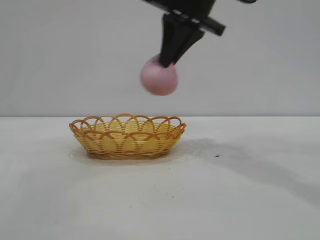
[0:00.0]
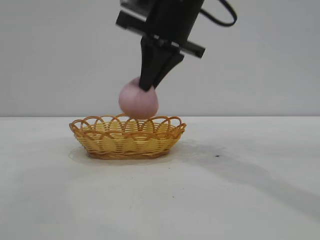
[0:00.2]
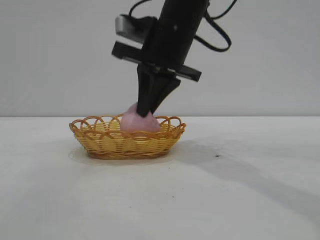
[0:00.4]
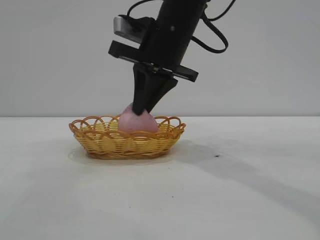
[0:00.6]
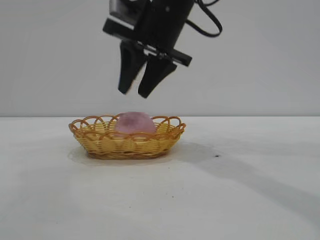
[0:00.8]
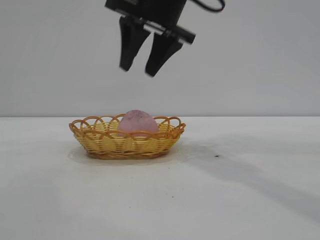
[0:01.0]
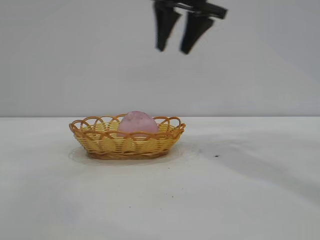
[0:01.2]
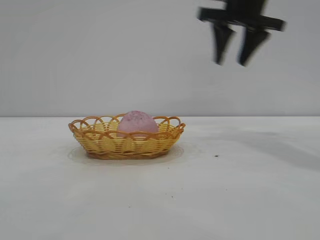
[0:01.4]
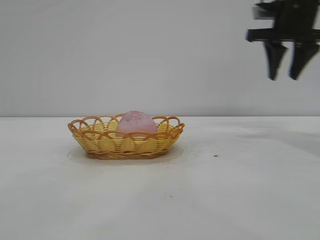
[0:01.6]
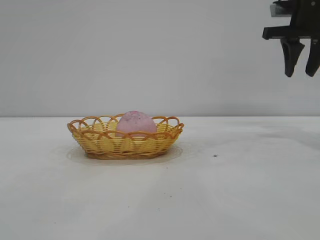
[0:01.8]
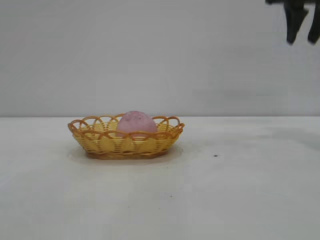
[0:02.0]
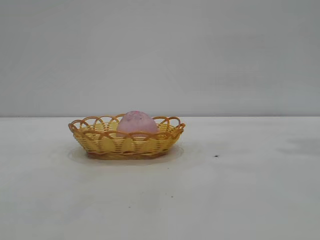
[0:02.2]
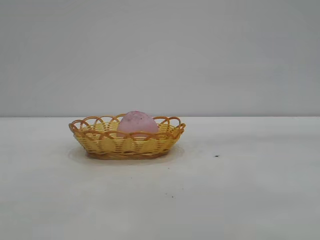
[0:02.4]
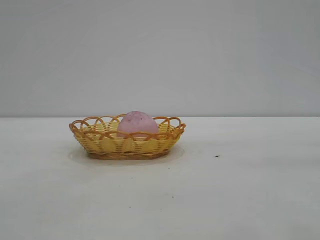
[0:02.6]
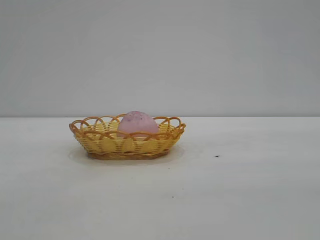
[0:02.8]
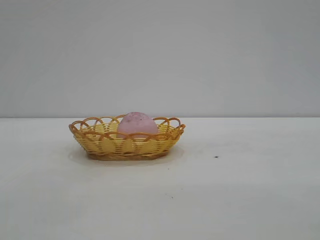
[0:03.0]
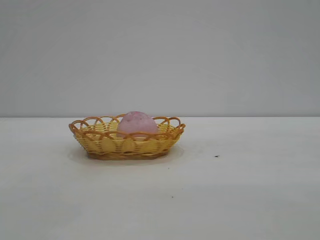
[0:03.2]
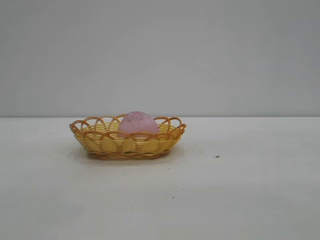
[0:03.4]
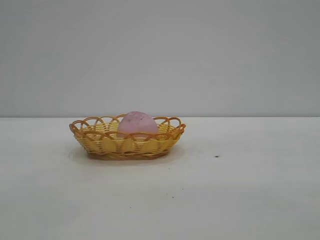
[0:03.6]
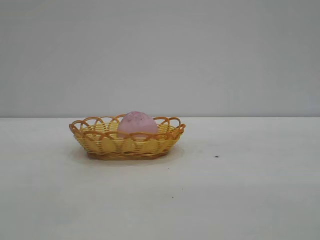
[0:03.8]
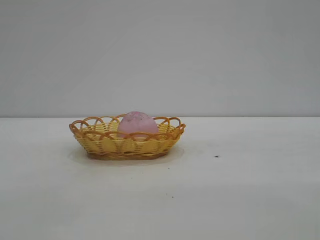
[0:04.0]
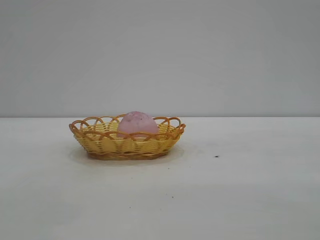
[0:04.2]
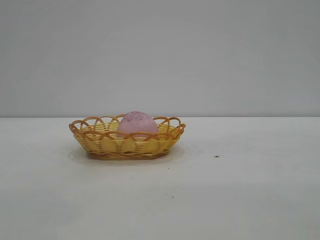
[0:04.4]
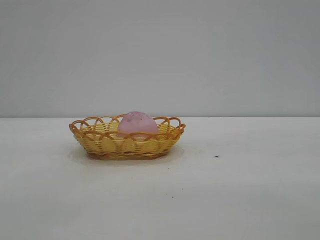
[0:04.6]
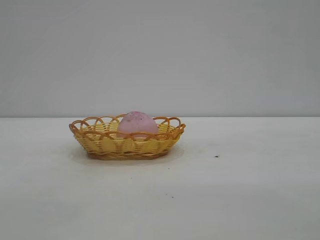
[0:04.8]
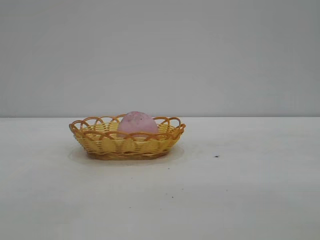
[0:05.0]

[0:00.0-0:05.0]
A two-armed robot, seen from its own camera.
Task of the whole recording: pick up the peach and put it into the basket.
Step, 0:00.0 to 0:01.0: place the peach into the basket.
